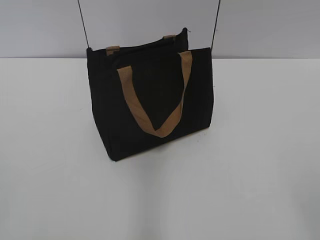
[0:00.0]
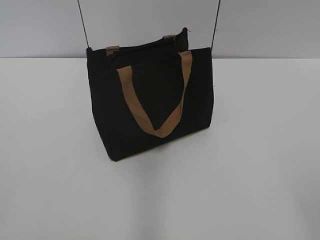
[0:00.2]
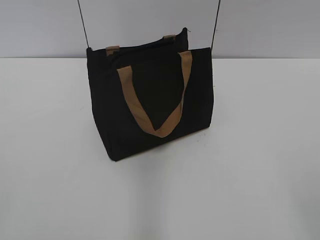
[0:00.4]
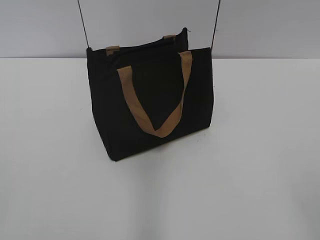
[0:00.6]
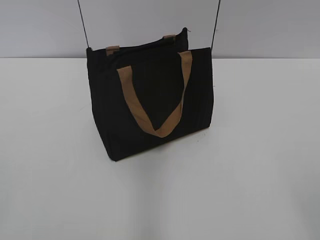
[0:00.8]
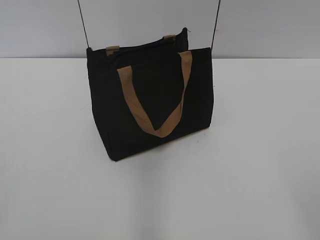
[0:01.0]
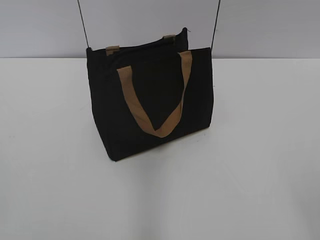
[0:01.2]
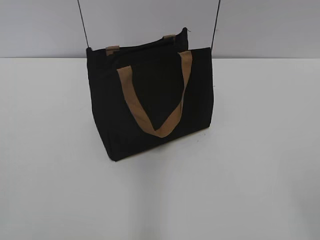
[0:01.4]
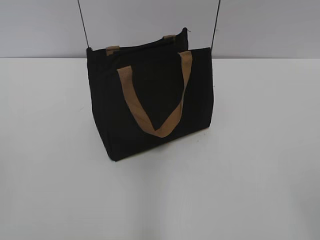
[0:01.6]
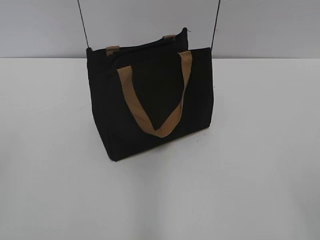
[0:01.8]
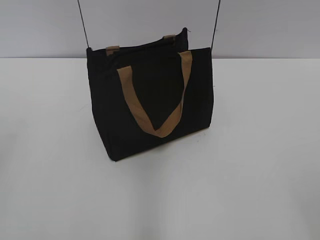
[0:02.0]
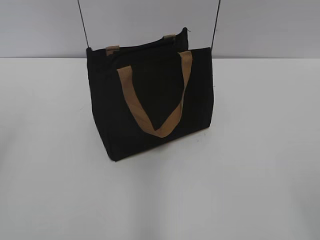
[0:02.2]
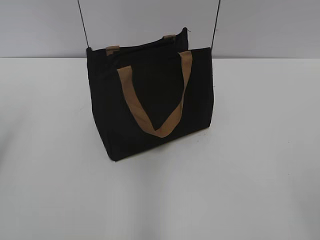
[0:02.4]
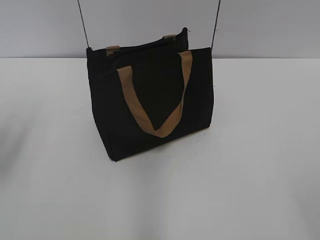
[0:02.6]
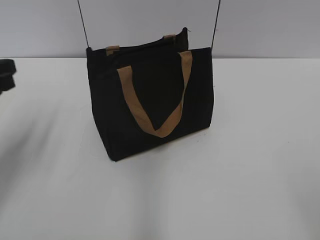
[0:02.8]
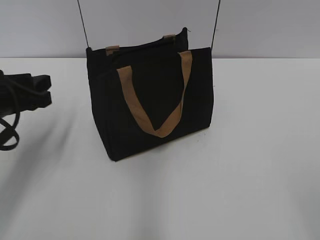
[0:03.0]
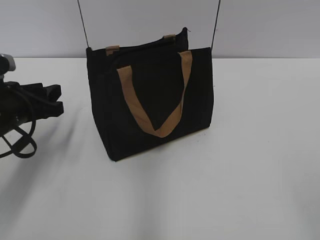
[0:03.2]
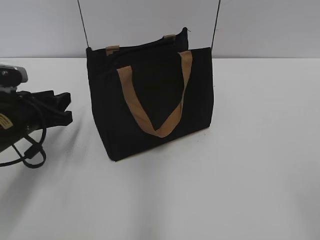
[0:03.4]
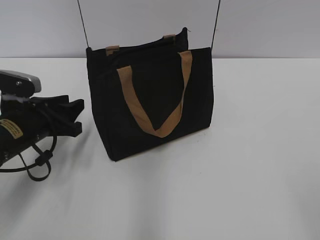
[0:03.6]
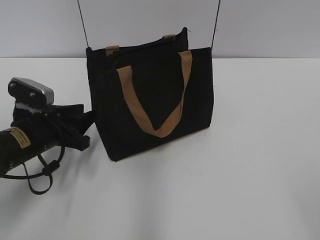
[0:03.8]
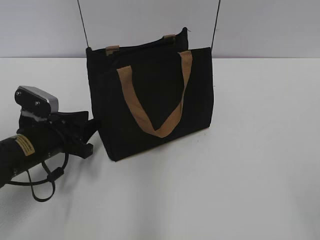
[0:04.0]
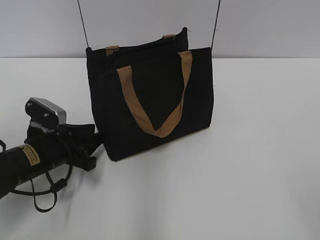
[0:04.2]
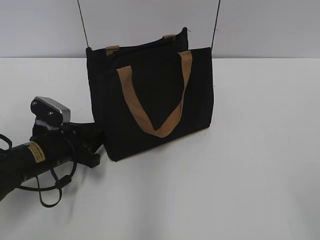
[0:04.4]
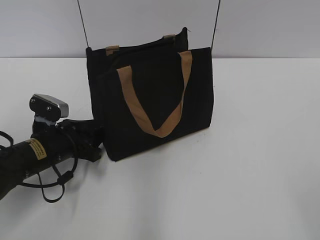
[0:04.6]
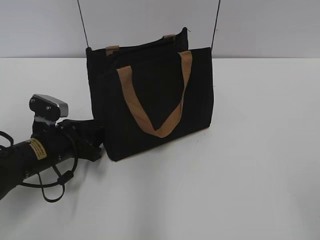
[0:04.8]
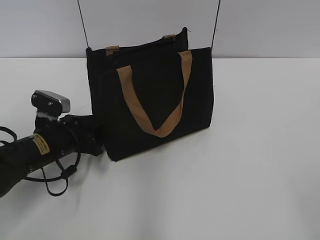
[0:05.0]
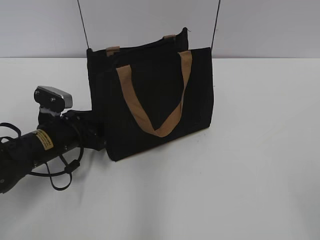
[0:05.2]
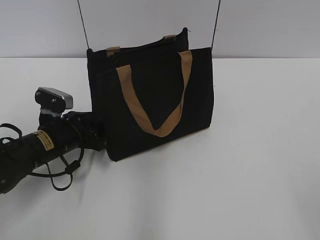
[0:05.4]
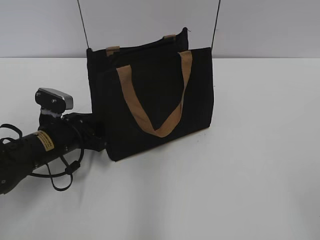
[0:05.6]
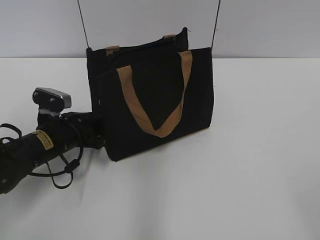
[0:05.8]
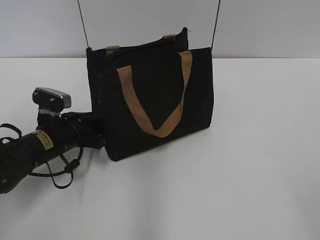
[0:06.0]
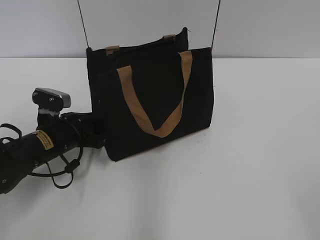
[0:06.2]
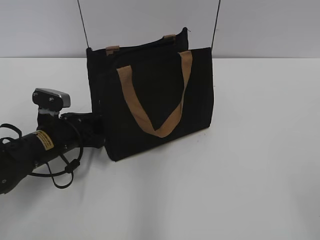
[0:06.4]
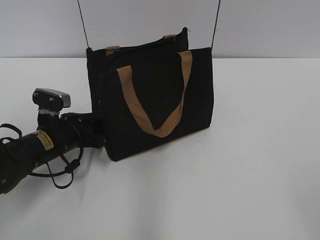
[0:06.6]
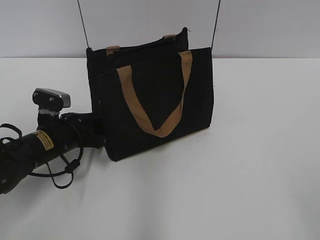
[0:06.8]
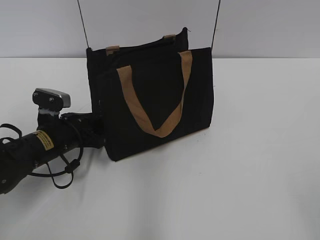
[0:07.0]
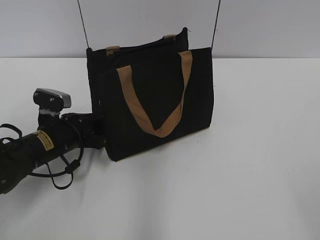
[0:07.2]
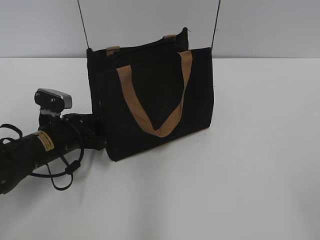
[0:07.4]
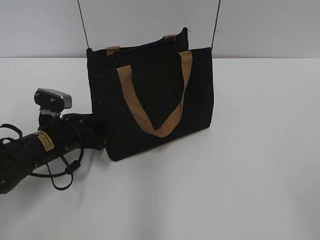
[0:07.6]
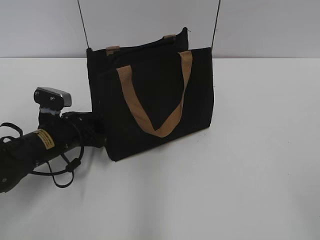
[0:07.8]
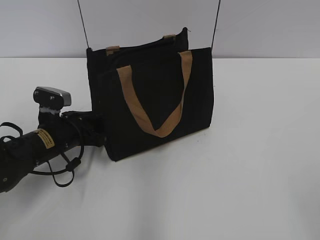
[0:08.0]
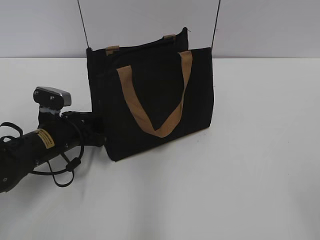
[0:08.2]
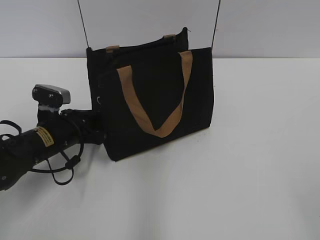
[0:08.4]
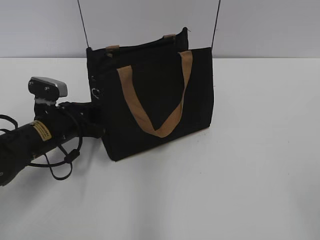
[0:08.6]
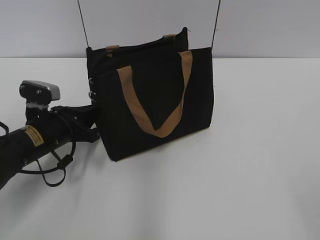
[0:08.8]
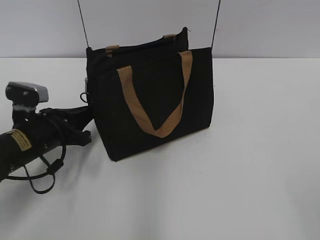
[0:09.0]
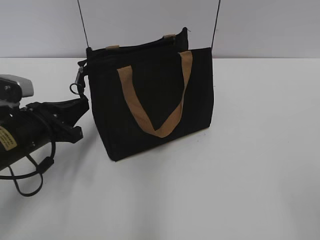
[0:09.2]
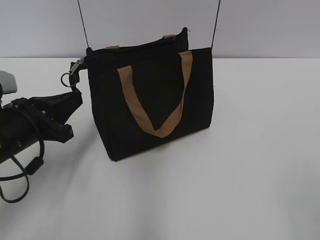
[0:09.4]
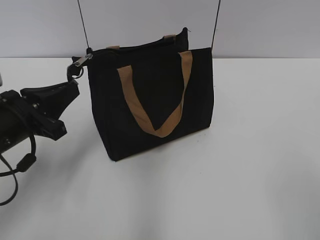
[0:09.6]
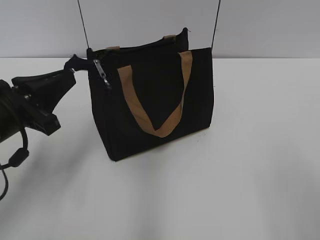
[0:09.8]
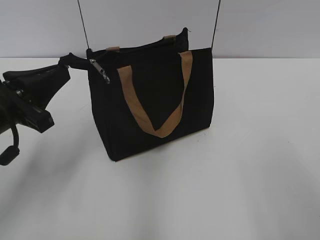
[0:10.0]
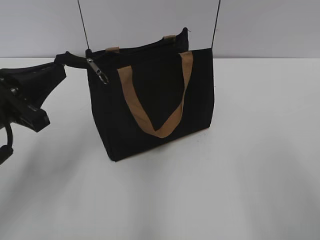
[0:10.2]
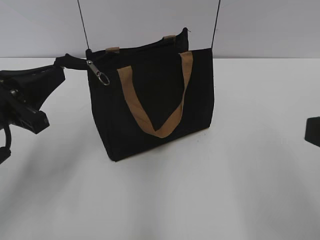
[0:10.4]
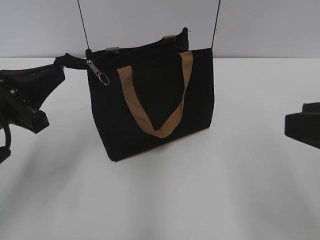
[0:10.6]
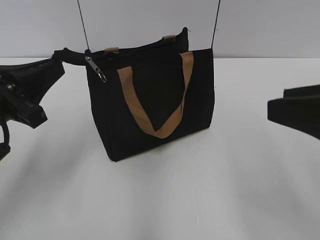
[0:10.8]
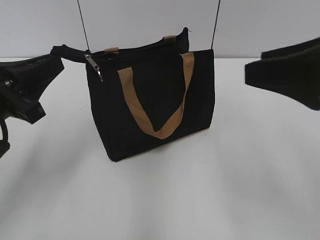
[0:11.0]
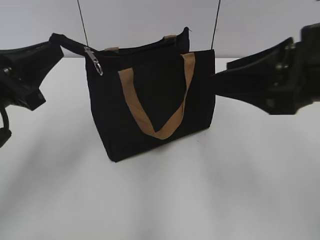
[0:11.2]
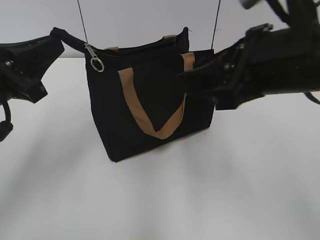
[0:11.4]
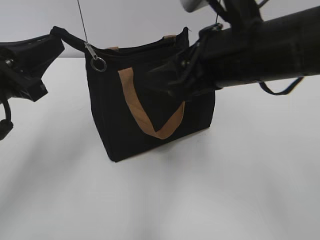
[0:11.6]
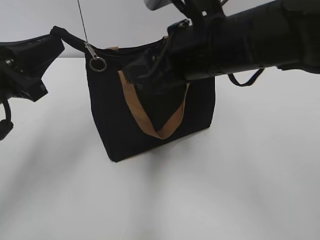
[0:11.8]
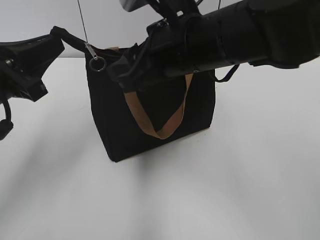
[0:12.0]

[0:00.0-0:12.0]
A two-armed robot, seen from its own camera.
0:01.6 to 0:03.0: The left gripper travels forward and downward by some 30 cm.
0:03.0 to 0:04.4: The left gripper moves downward, roughly 10 cm.
0:04.4 to 0:06.0: The grippers move only a little.
0:06.0 to 0:07.6: The two grippers keep their place.
0:07.6 to 0:09.0: The left gripper closes up.
0:09.0 to 0:10.4: The right gripper moves forward, about 10 cm. The left gripper travels upward and backward by about 15 cm.
0:10.4 to 0:12.0: The right gripper moves forward and to the left, approximately 25 cm.

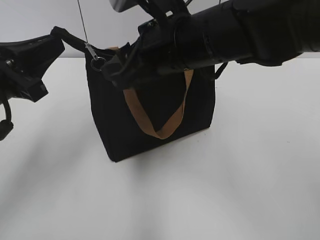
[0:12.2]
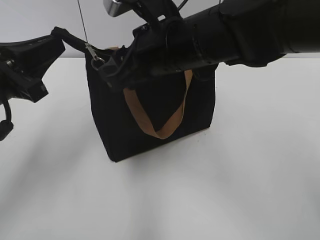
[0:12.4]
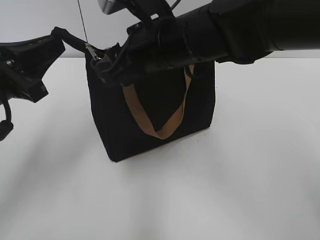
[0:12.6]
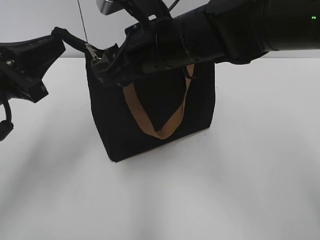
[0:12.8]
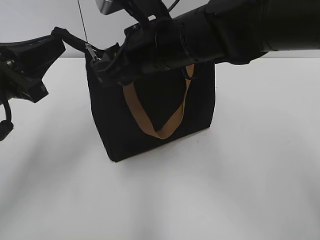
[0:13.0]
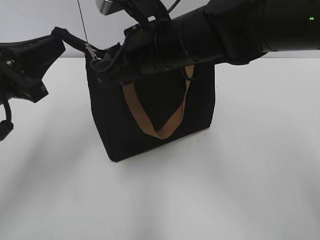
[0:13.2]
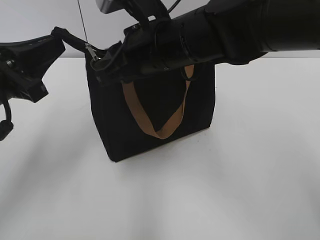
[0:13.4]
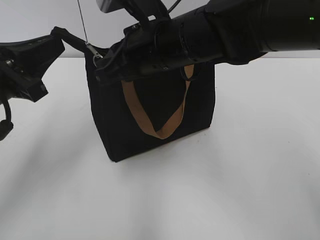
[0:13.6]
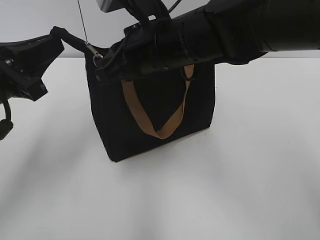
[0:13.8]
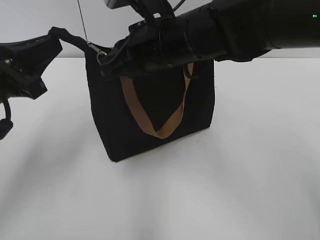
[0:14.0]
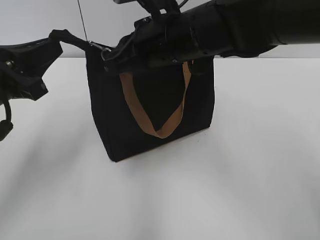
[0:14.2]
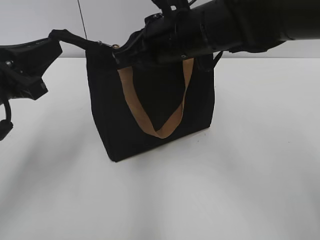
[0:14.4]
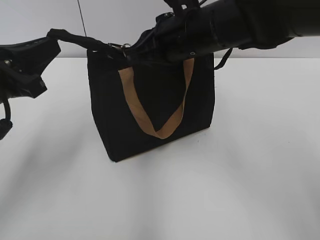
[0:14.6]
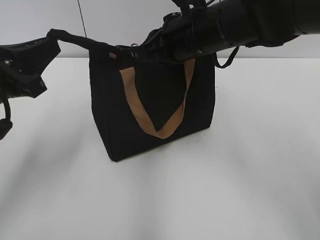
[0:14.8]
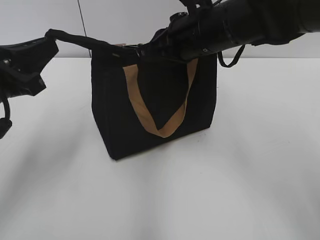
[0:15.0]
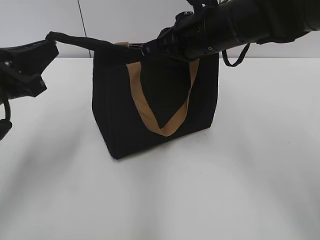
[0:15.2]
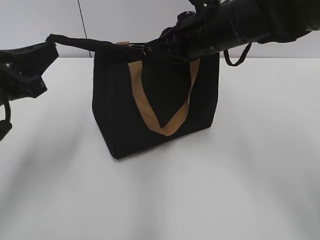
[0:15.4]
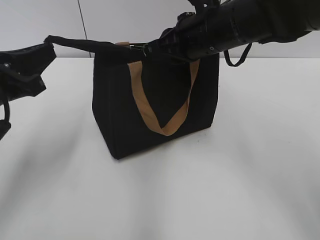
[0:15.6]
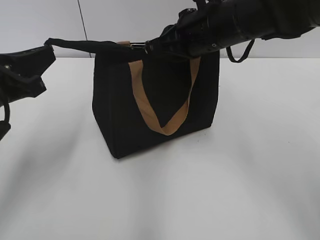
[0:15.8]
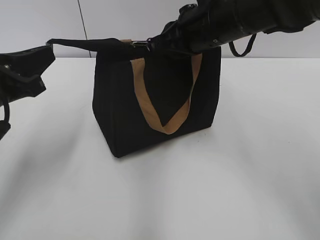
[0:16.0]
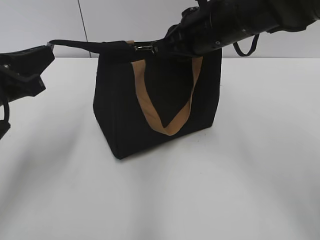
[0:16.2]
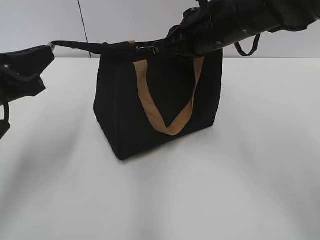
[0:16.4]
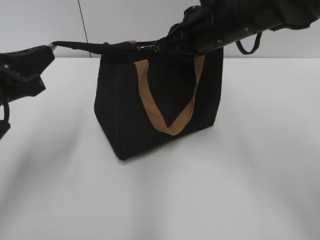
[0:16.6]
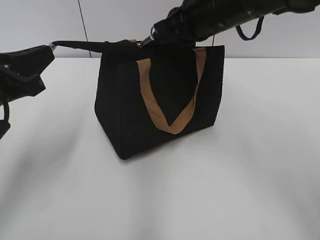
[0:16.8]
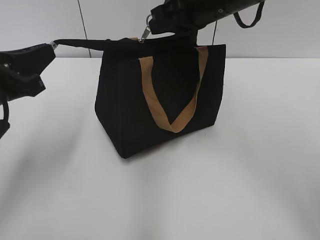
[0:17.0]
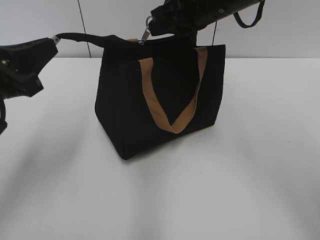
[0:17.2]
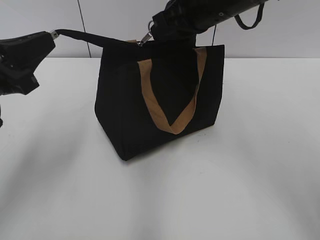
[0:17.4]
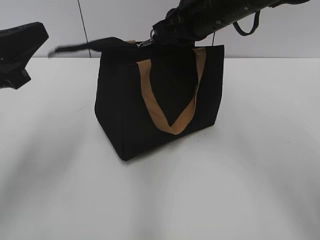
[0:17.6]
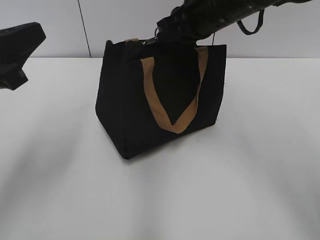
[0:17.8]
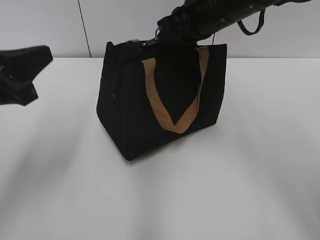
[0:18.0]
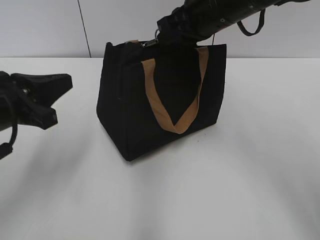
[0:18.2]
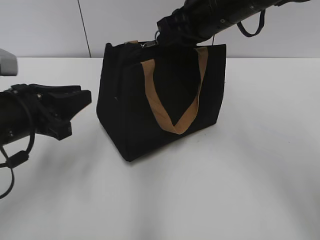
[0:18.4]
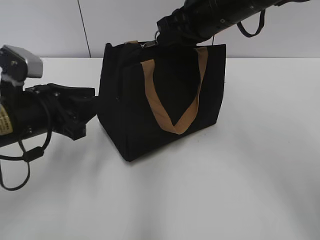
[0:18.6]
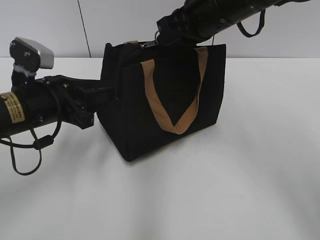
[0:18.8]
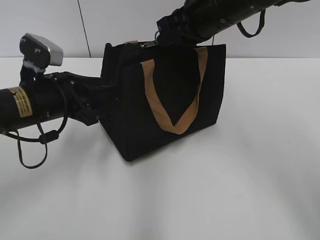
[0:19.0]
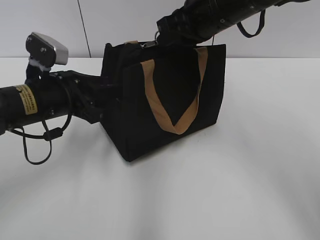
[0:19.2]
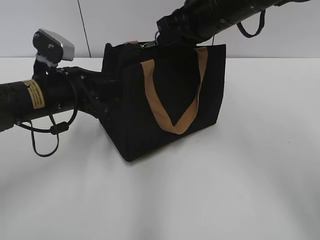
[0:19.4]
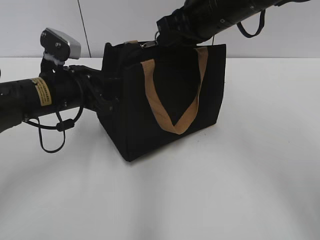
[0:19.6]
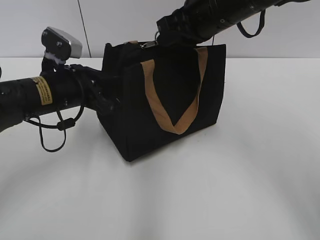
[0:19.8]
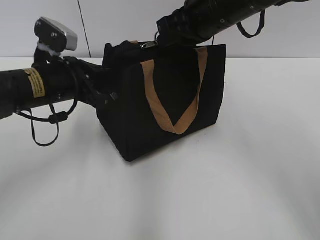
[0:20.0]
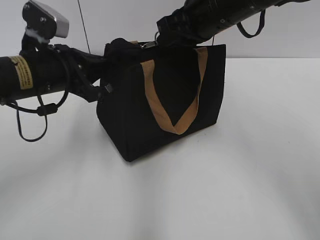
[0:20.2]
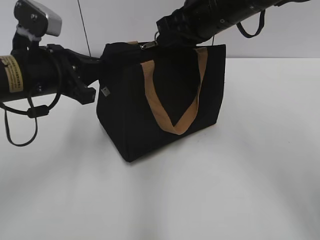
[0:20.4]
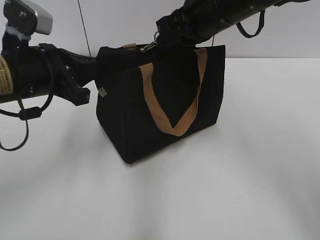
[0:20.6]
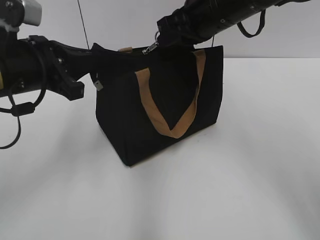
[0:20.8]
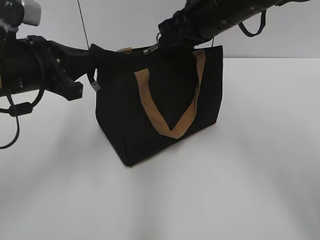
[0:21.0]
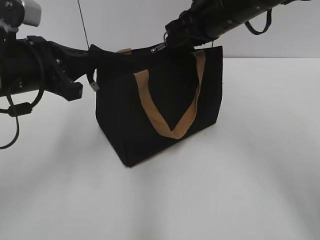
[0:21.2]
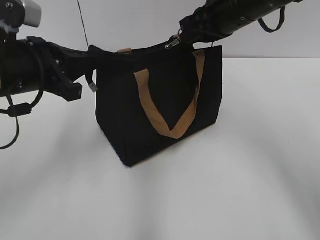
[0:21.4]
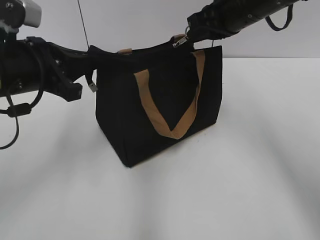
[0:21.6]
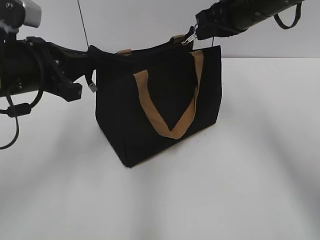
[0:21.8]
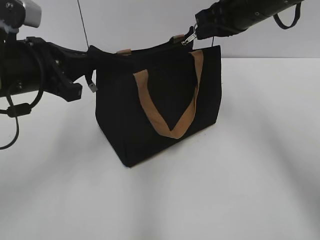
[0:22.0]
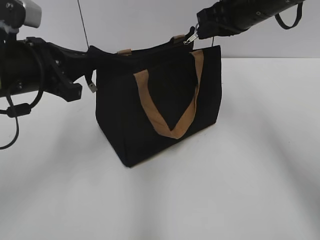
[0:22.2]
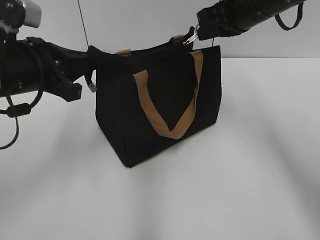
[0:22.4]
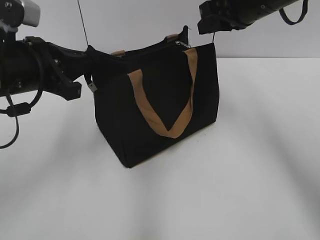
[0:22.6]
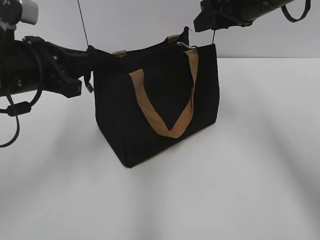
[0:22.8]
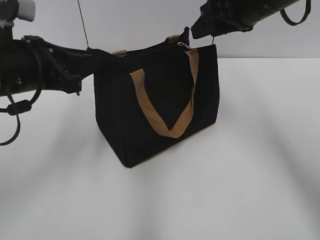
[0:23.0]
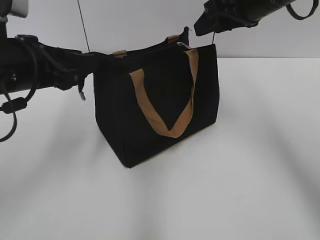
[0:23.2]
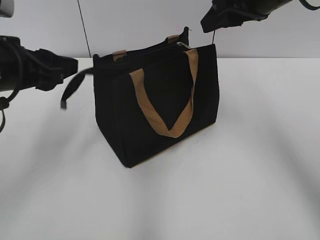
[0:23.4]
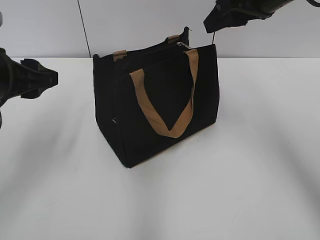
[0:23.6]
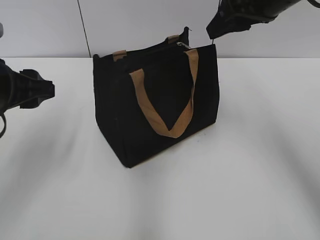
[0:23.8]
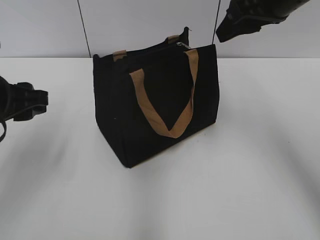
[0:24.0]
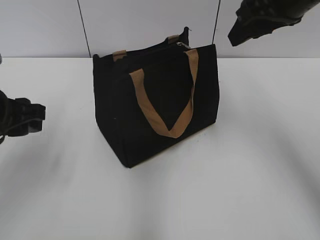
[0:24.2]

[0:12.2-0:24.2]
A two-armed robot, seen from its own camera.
Step, 0:12.2 to 0:22.6: Zip up the bag with your right hand.
Step, 0:22.8 to 0:23.4: Grab the zipper with your left hand.
0:12.2 to 0:13.8: The right gripper closes.
0:13.8 to 0:15.2: The right gripper shifts approximately 5 cm to the right.
0:15.2 to 0:18.2: There are only small adjustments of the grippers.
0:18.2 to 0:19.8: The left gripper is displaced forward and to the right by approximately 10 cm, and opens, then closes again.
0:19.8 to 0:21.2: The left gripper heads upward, covering roughly 5 cm.
0:21.2 to 0:22.6: The right gripper shifts about 5 cm to the right.
0:22.6 to 0:24.2: The right gripper ends up about 5 cm from where it was, and opens its fingers; the left gripper moves roughly 5 cm, and opens up.
